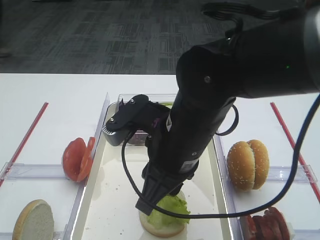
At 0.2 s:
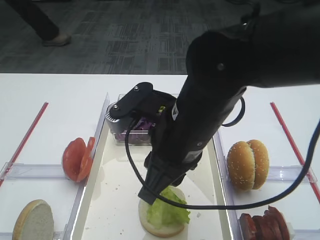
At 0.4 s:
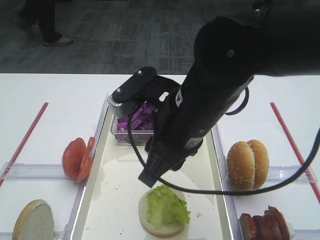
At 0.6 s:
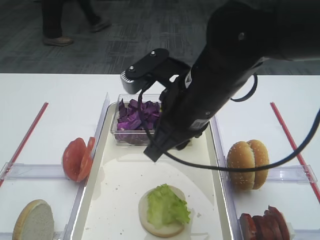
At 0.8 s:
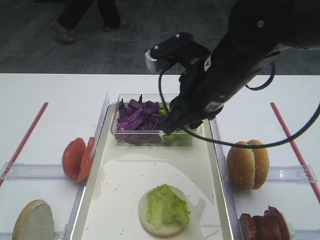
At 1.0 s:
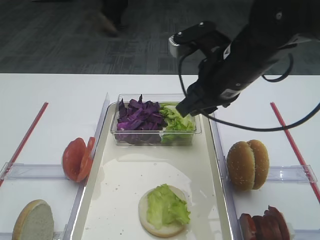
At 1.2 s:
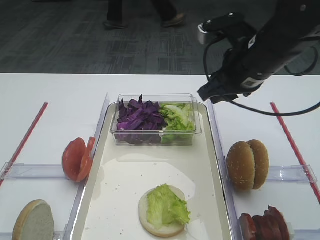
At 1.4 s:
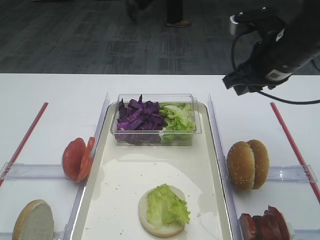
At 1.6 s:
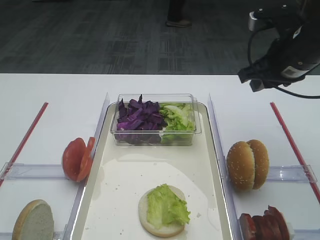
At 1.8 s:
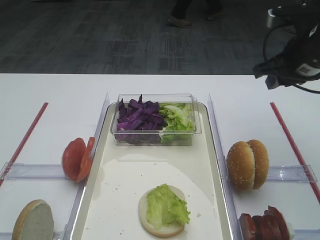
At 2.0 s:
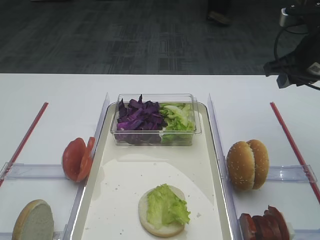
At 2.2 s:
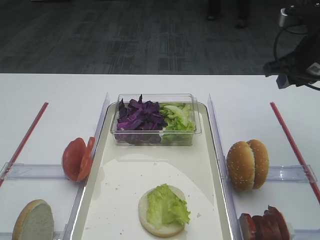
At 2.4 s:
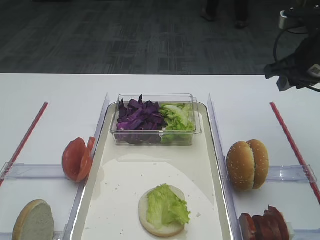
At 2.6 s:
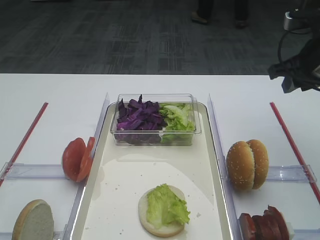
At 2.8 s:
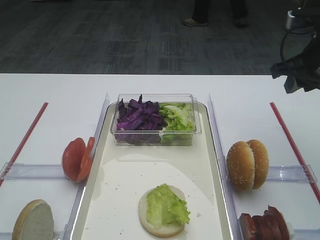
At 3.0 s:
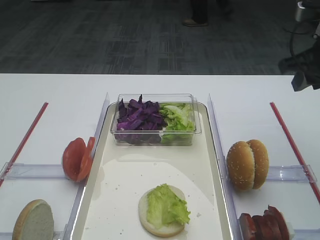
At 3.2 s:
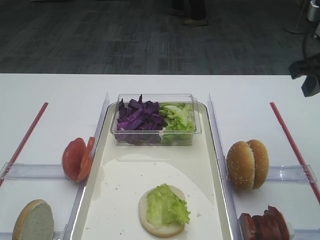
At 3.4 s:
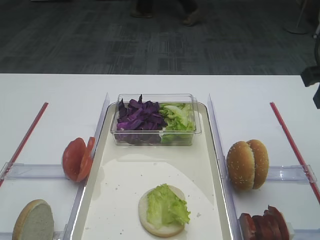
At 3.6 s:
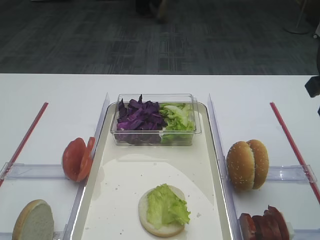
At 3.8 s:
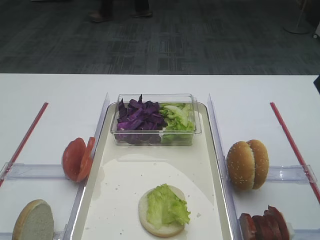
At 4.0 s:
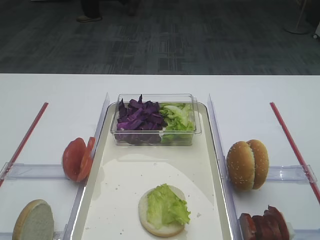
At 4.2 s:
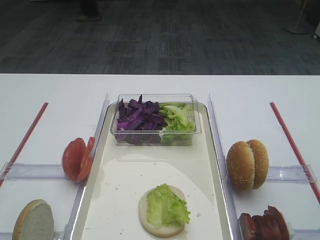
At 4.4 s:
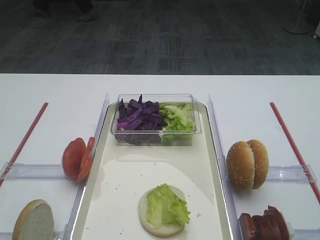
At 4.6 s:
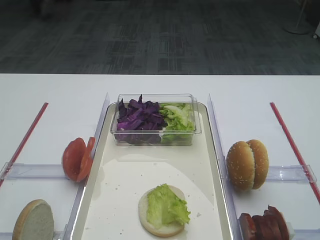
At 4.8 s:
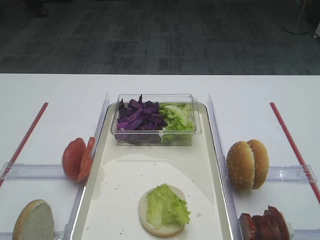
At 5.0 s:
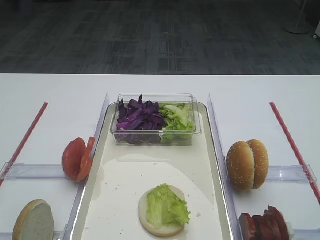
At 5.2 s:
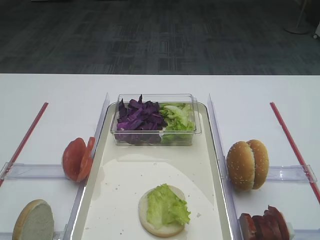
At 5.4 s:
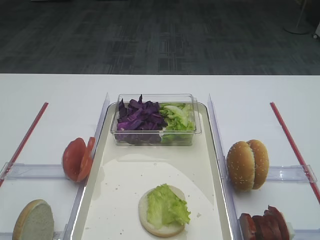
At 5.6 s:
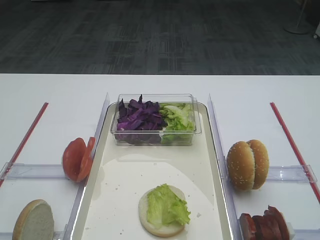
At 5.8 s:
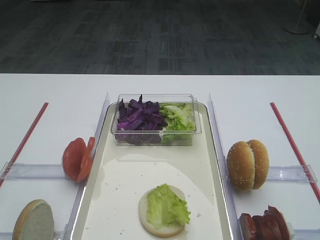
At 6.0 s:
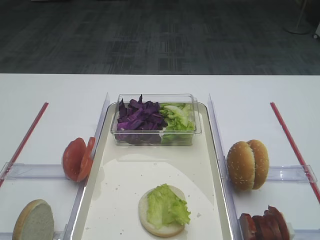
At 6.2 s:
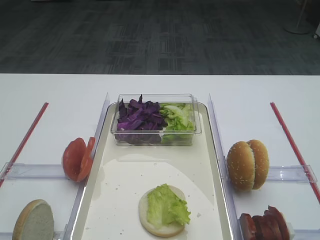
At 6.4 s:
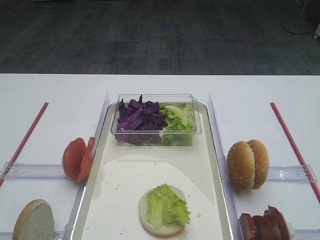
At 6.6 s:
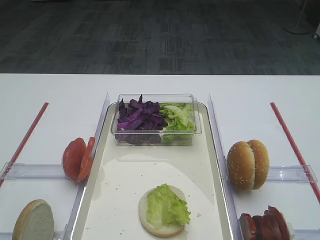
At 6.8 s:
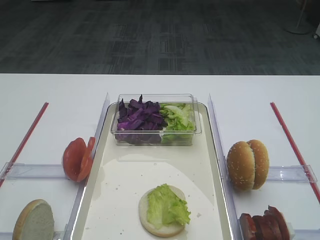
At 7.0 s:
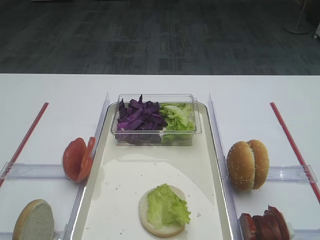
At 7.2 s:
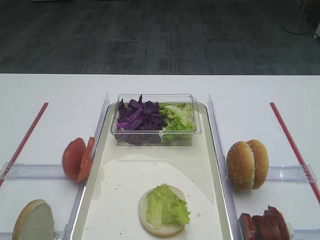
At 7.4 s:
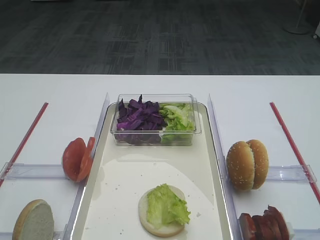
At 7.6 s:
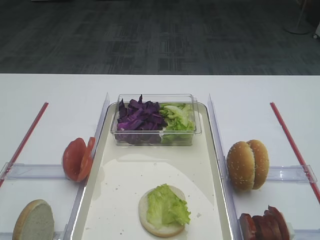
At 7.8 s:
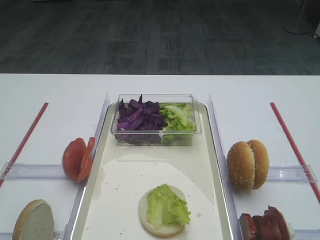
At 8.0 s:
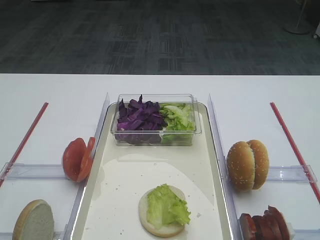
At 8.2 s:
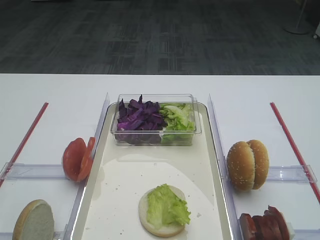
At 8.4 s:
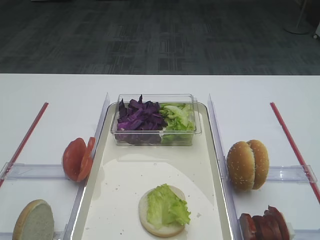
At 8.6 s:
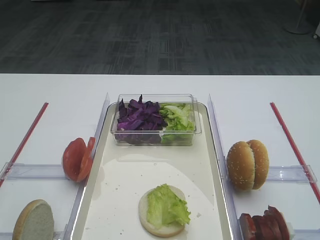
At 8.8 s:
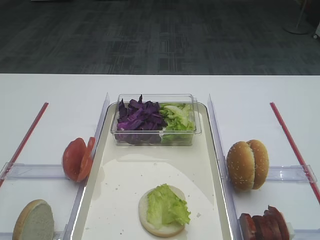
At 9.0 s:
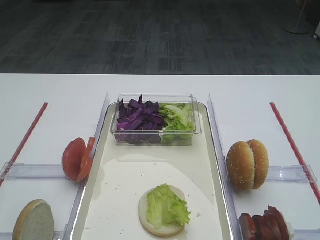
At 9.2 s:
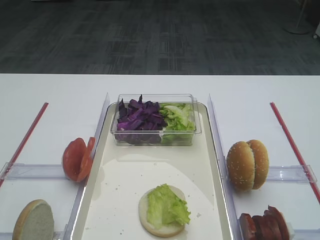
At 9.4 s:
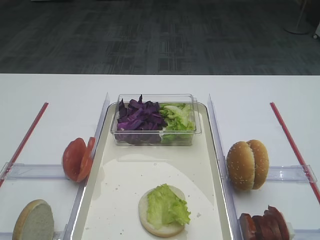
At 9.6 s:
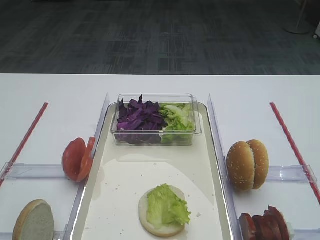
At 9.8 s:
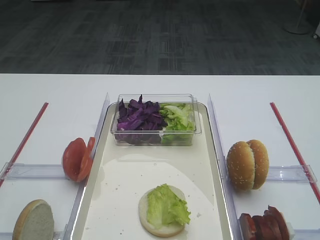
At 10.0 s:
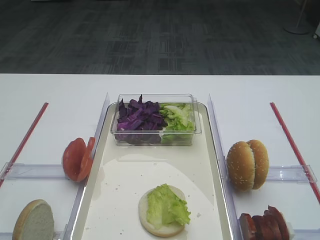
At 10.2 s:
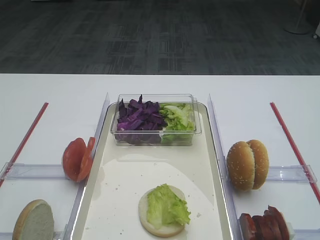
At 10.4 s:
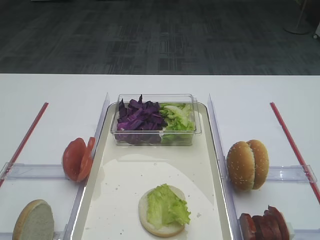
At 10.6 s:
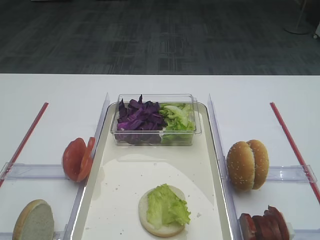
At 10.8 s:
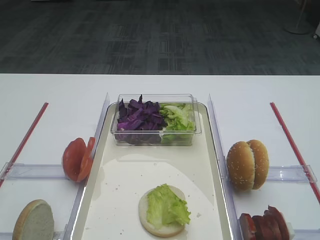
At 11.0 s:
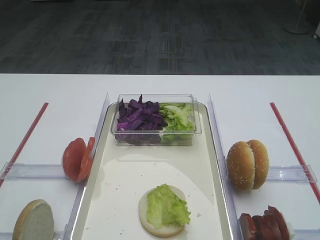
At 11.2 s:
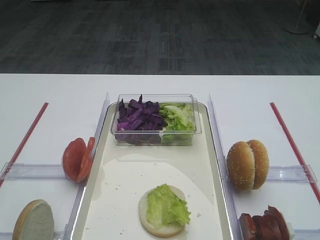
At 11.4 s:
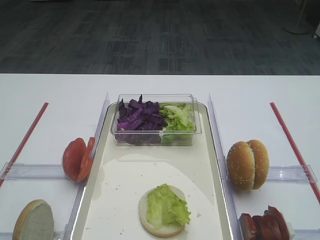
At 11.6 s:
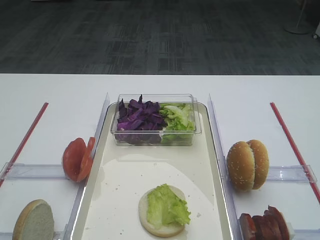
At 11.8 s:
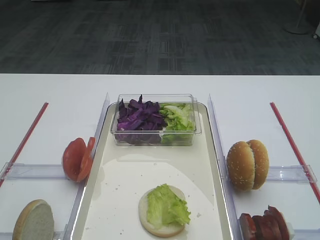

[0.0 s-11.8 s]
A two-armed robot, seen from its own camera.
0.0 to 1.4 s: The right gripper heads to the right and forward, covering some 20 cm.
1.4 to 3.0 s: The right gripper is displaced to the right by some 5 cm.
3.0 to 4.4 s: The right gripper moves backward and upward, roughly 20 cm.
7.4 to 11.8 s: Neither gripper changes place.

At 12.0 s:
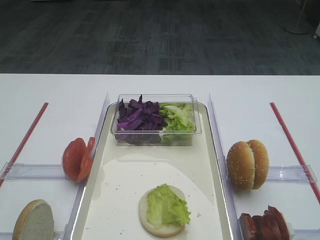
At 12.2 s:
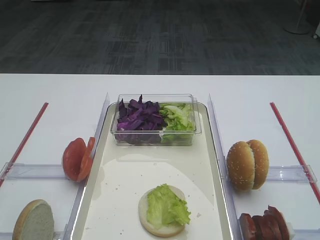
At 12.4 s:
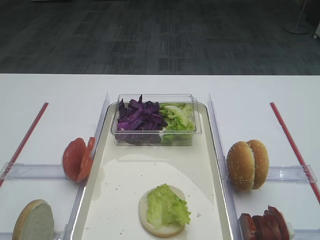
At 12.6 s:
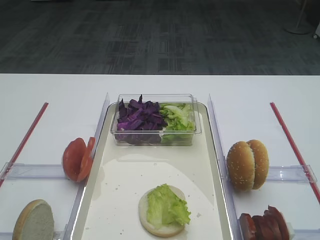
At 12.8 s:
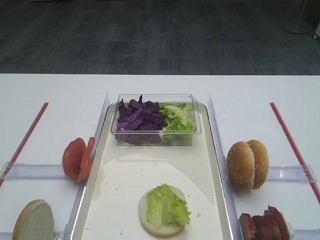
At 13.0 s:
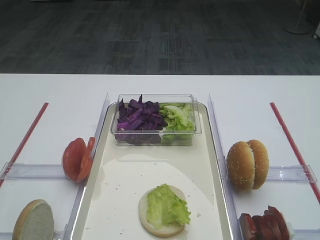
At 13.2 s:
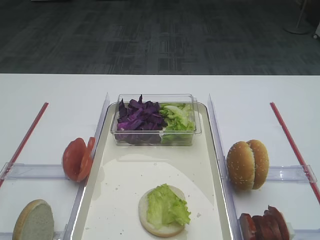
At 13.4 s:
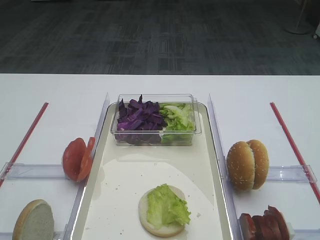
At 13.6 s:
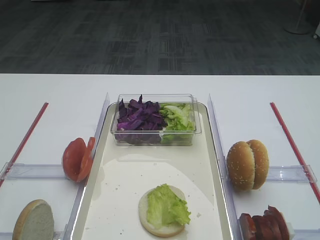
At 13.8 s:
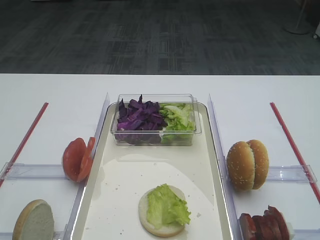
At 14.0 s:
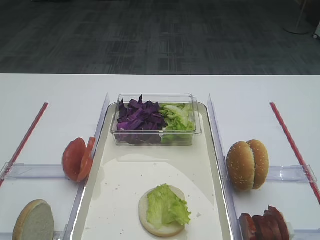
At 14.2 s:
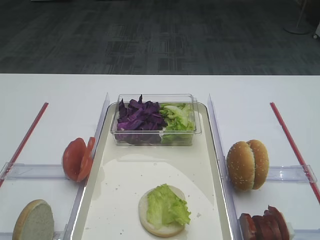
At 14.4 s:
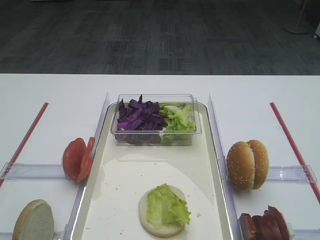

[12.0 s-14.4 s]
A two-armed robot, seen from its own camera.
12.0 to 14.4 s: Both grippers stay put.
